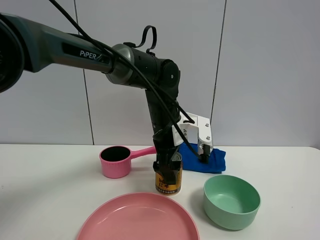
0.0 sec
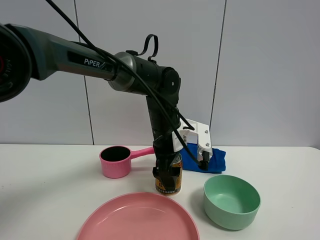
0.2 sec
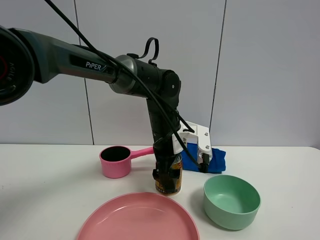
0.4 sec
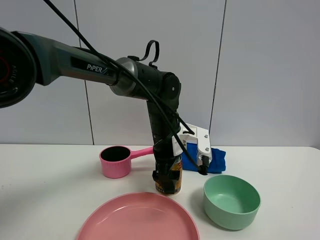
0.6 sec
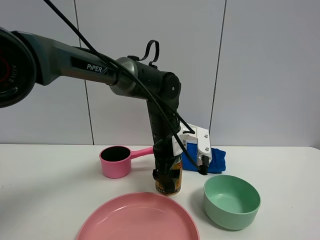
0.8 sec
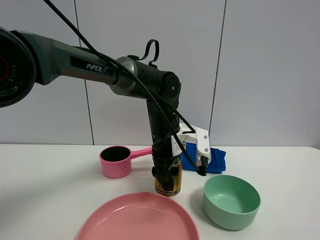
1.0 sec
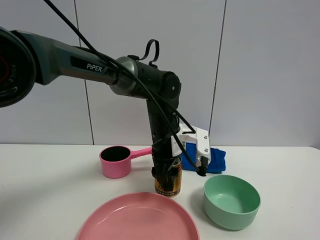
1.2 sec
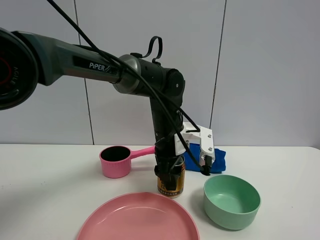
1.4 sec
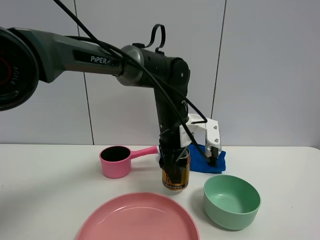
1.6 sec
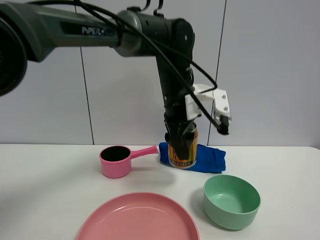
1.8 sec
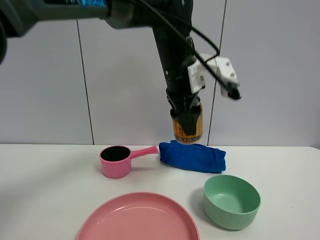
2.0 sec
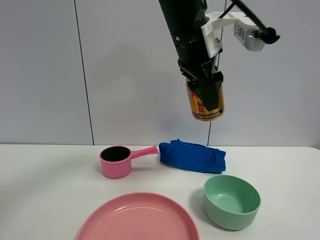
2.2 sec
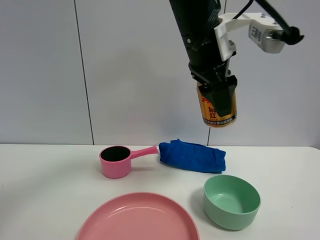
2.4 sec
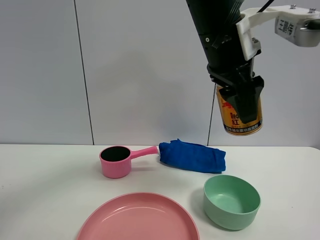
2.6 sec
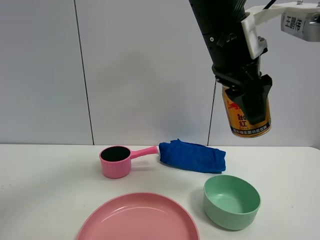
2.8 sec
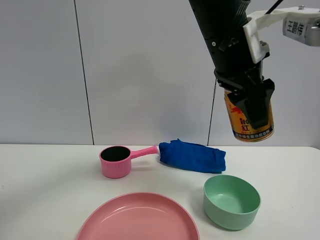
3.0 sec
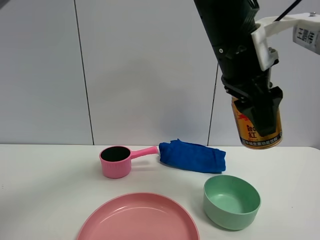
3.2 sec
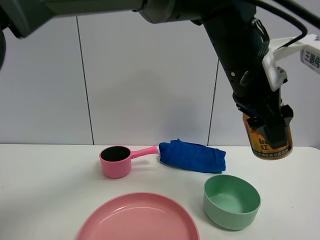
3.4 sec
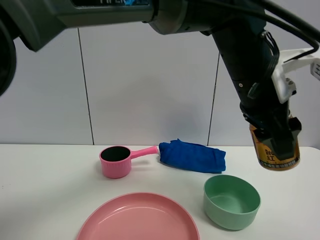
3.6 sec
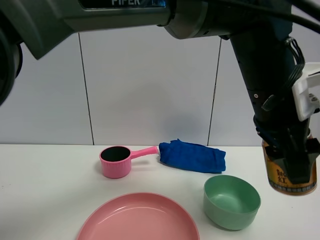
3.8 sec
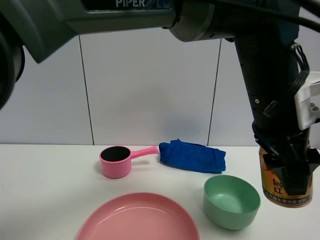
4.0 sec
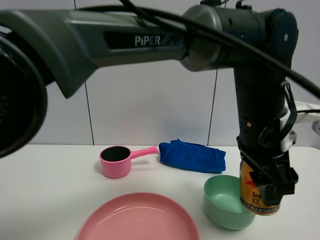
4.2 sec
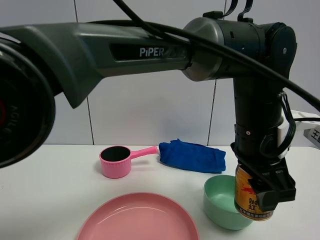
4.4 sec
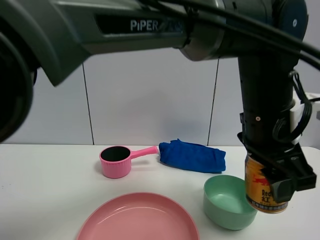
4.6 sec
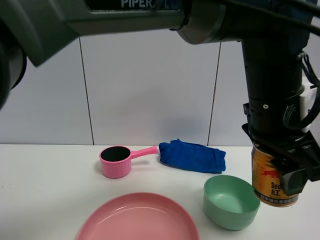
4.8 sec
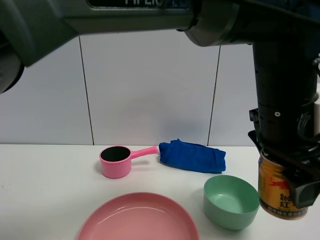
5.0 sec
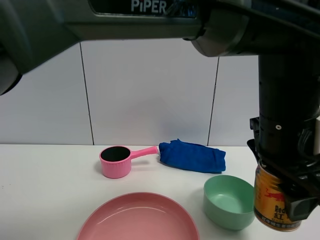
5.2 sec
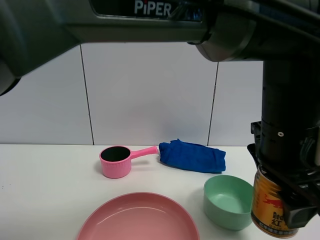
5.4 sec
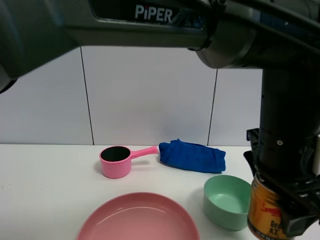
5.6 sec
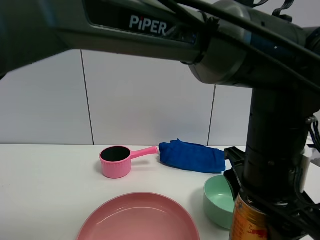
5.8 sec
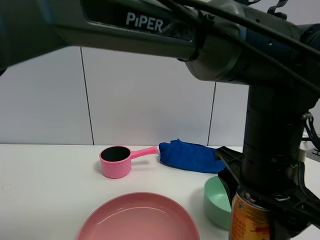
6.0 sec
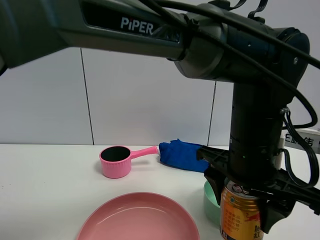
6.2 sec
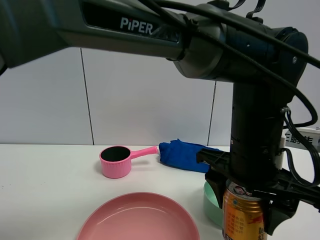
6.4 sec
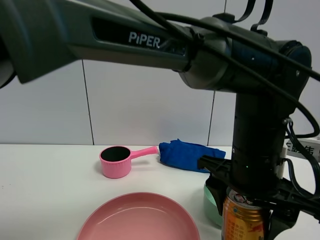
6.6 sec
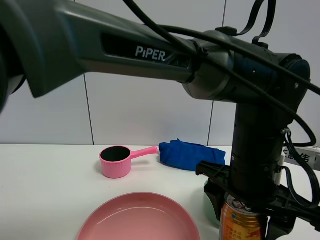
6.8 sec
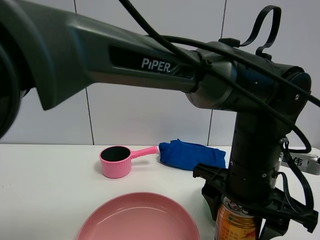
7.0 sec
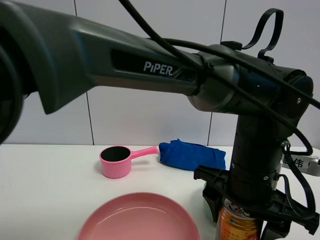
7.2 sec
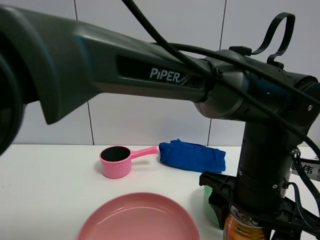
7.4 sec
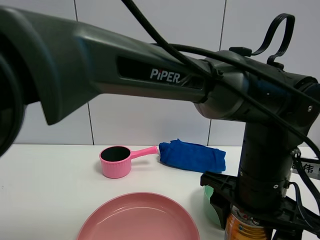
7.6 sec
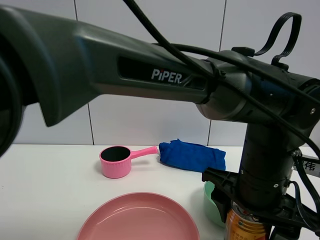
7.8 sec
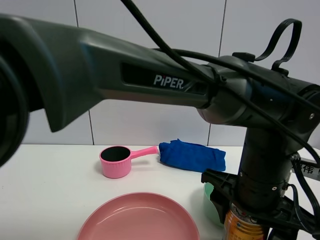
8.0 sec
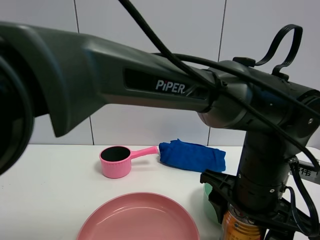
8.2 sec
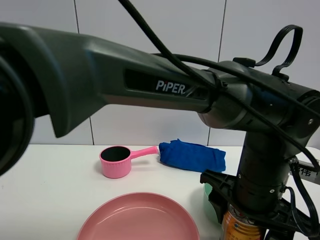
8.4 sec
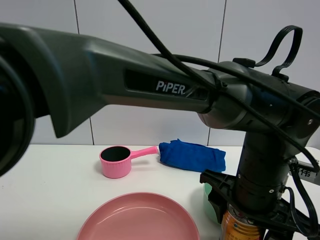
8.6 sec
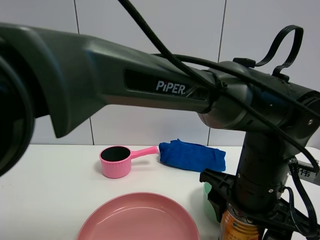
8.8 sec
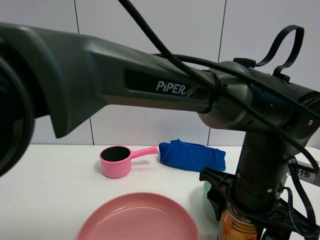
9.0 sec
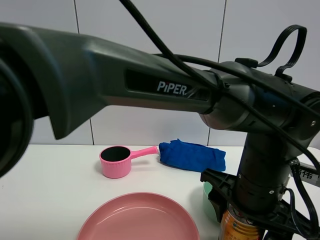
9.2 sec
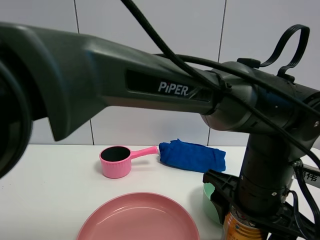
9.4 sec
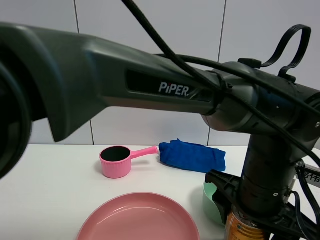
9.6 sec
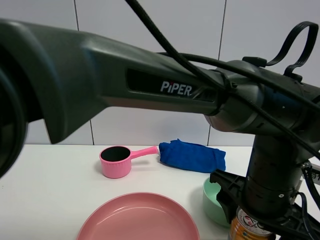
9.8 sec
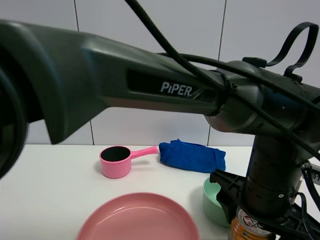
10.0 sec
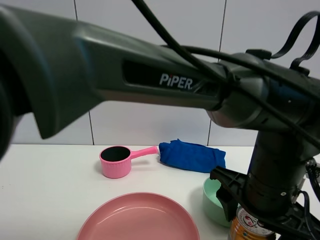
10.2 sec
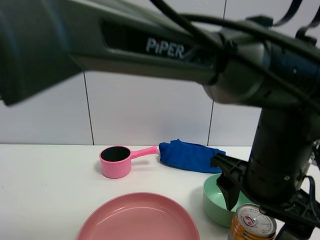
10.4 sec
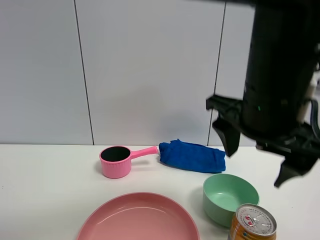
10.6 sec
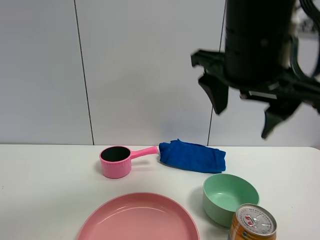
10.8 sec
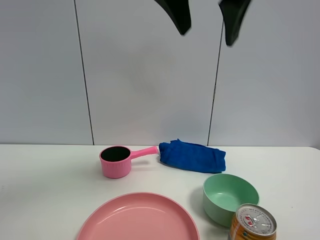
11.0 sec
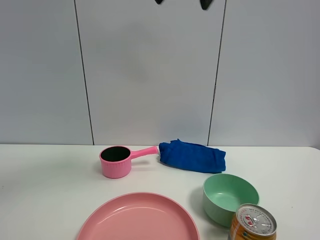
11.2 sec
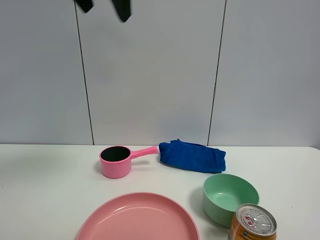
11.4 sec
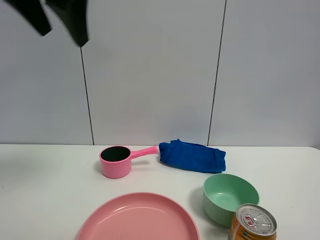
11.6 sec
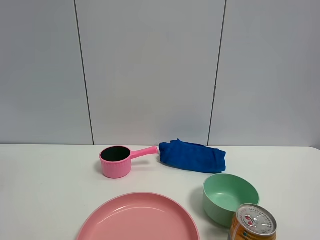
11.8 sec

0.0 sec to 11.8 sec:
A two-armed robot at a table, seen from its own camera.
Task of the whole recording: the gripper move the object.
Step, 1.2 sec to 10.4 sec: Place the red bull on the table with the left gripper.
0.0 sec to 1.4 sec: The left gripper closes its fingers.
1.4 sec to 3.0 sec: The left gripper heads upward and backward, covering approximately 20 cm.
3.0 sec to 4.4 sec: The left gripper goes some 15 cm downward and to the right.
8.8 sec to 10.4 sec: The left gripper moves approximately 5 cm.
10.4 sec to 11.8 sec: The left gripper goes about 40 cm to the left and upward.

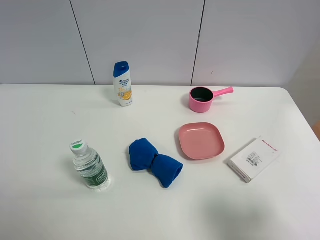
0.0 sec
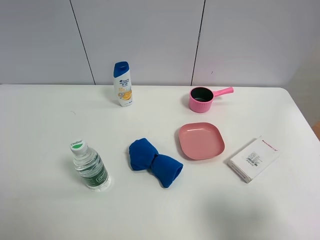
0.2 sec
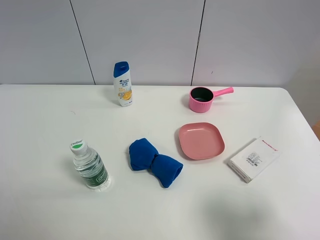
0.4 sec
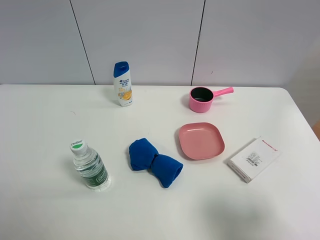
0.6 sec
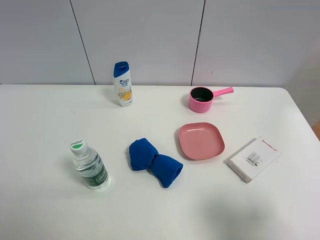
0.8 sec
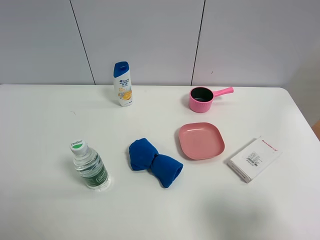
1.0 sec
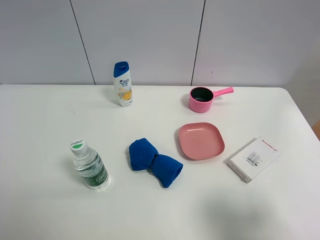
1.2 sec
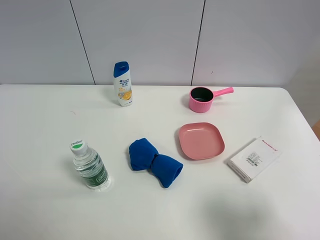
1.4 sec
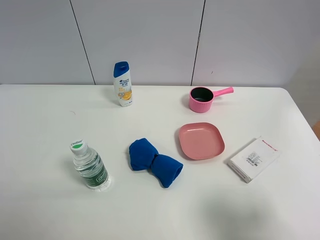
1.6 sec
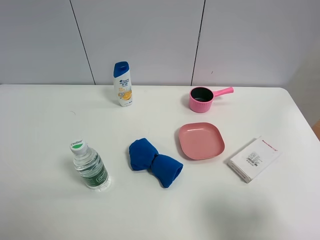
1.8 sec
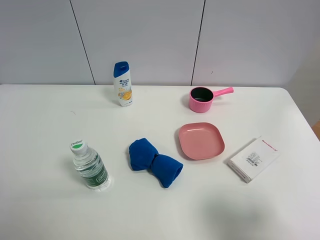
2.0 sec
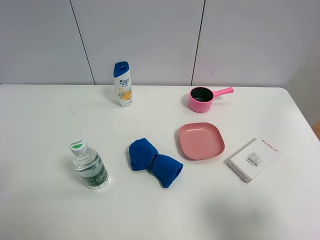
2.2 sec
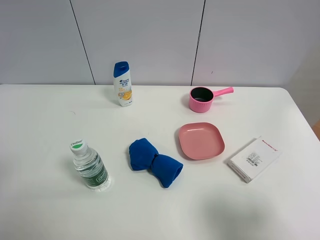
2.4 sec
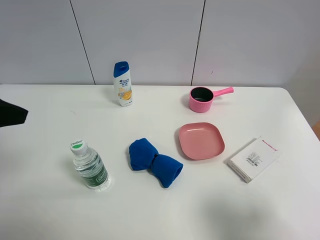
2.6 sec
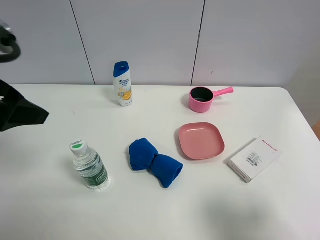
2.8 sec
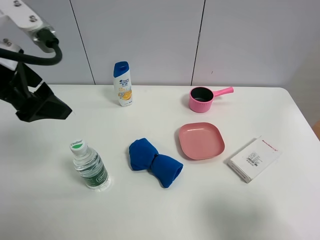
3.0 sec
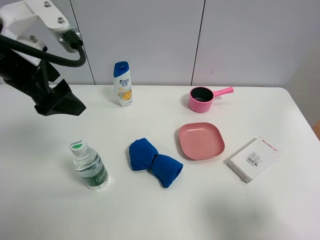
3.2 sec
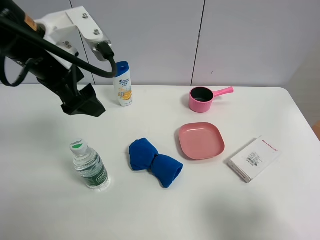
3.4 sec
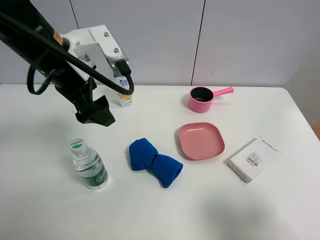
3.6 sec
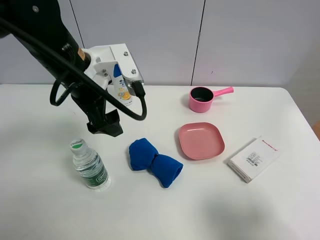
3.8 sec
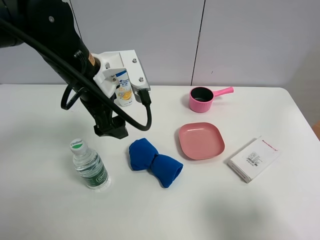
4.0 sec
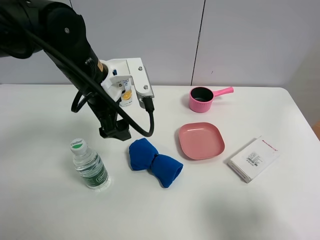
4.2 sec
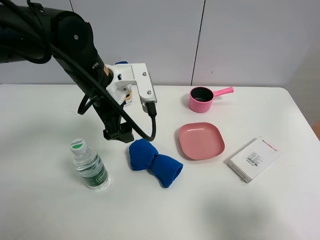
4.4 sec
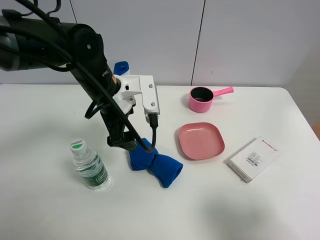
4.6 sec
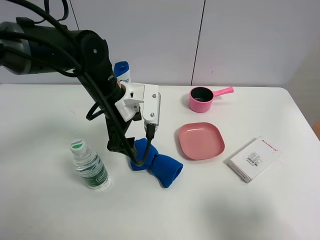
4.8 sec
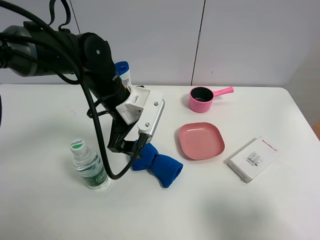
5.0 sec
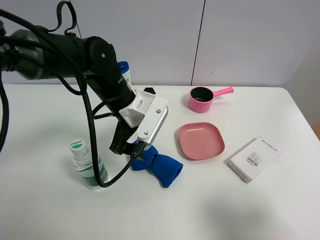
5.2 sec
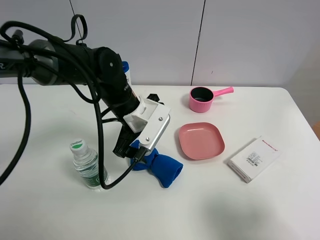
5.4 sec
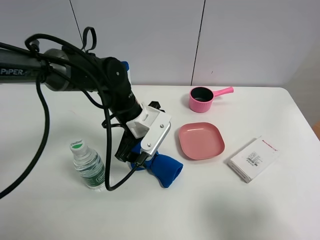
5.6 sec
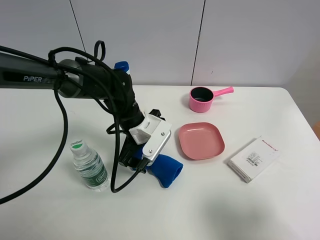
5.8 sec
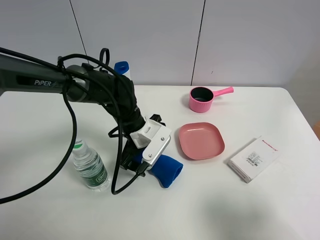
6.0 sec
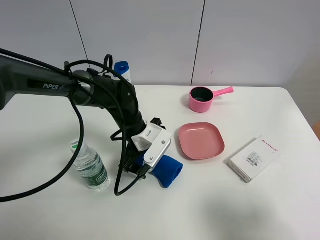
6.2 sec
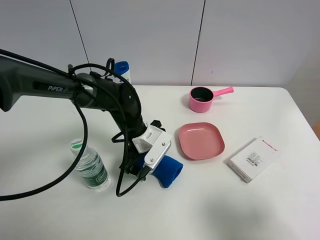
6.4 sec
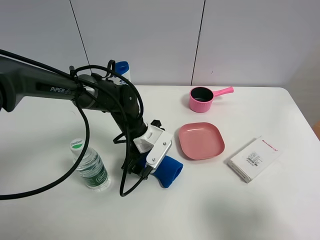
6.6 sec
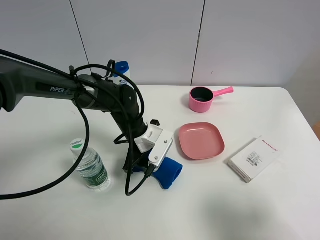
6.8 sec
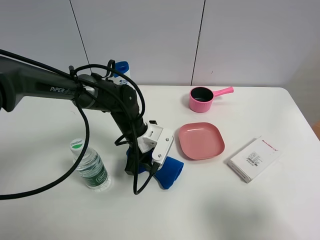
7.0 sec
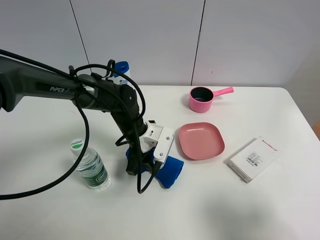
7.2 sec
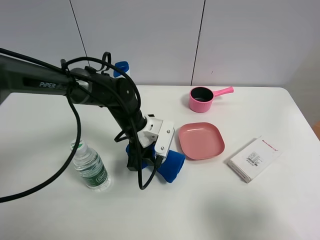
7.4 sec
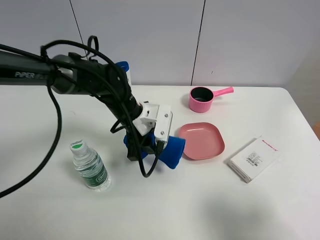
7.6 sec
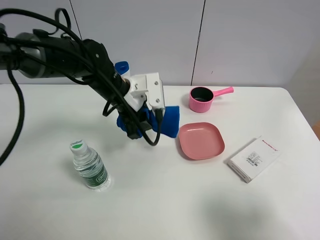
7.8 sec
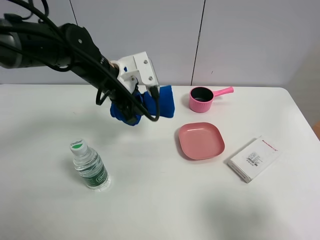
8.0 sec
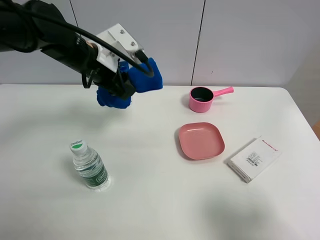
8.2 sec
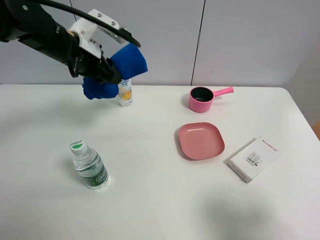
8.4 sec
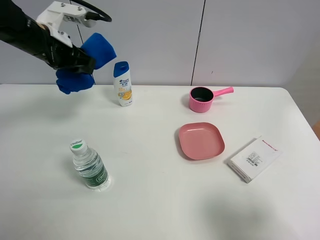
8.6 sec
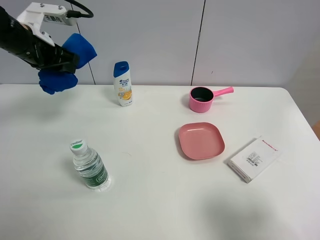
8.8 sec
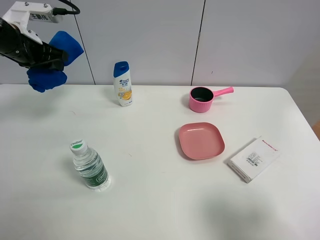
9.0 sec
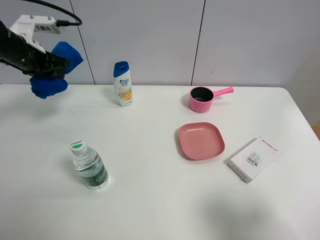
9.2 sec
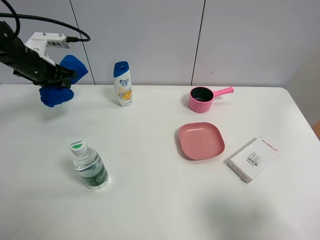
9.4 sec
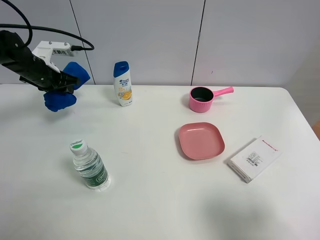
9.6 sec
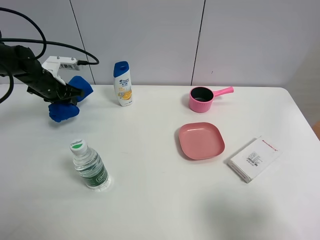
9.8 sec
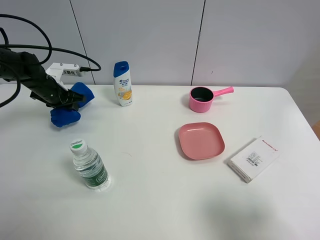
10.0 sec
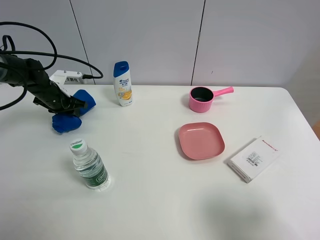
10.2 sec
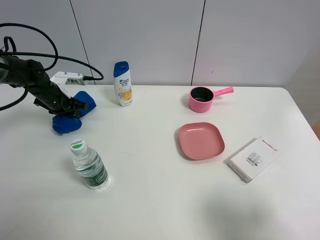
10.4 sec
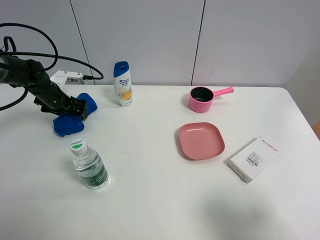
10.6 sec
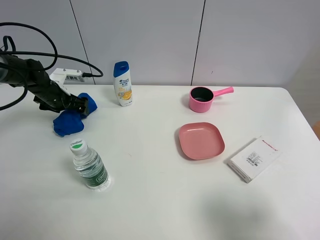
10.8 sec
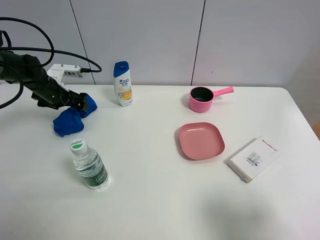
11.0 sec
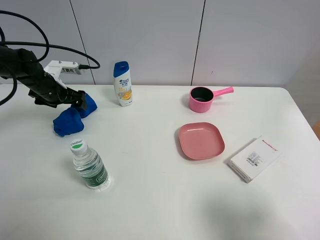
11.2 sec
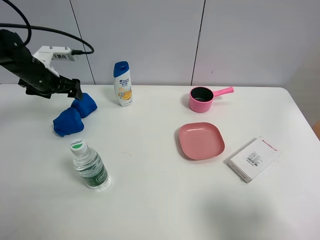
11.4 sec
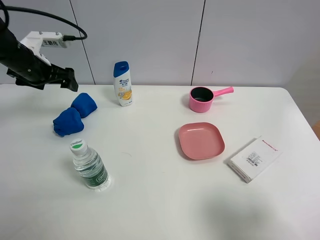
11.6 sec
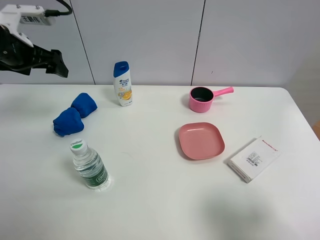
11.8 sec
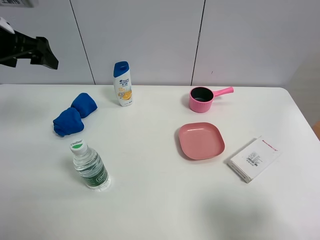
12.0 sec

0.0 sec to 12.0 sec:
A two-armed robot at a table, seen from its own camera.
Task of the whole recording: the gripper move the object.
Step, 0.0 sec to 7.2 sec: Grasp the blue towel with the left gripper.
Step, 7.4 sec to 11.0 sec: Place the blue towel on the table with the left gripper.
0.0 sec to 1.6 sec: The two grippers keep their place.
1.6 sec to 3.0 sec: The left gripper heads forward and to the right, covering some 25 cm.
3.0 sec to 4.4 sec: The left gripper is displaced to the right, downward and forward by about 15 cm.
4.4 sec to 6.0 sec: The left gripper moves downward, approximately 15 cm.
6.0 sec to 7.6 sec: The left gripper closes.
7.6 sec to 9.0 sec: The left gripper travels to the left and upward by approximately 25 cm.
9.0 sec to 10.4 sec: The left gripper travels downward by some 15 cm.
10.4 sec to 12.0 sec: The left gripper heads upward and backward, covering approximately 25 cm, and opens.
